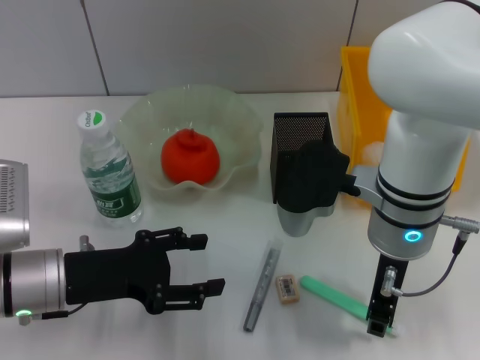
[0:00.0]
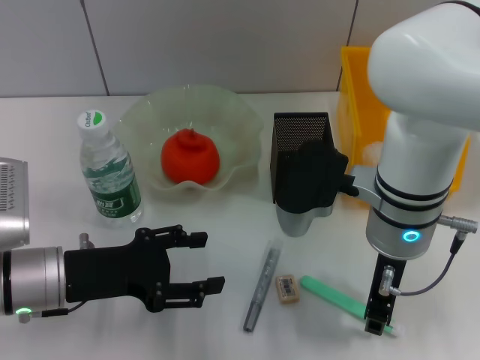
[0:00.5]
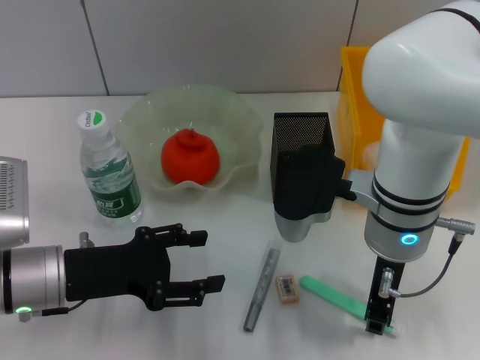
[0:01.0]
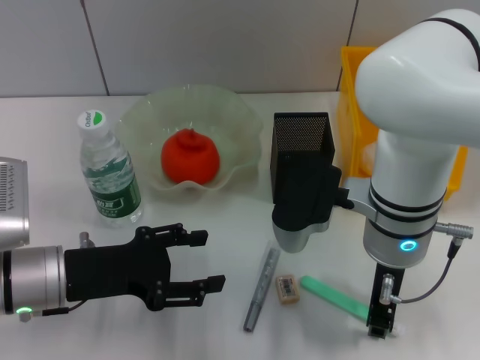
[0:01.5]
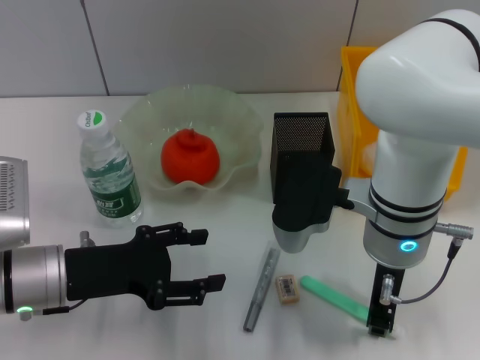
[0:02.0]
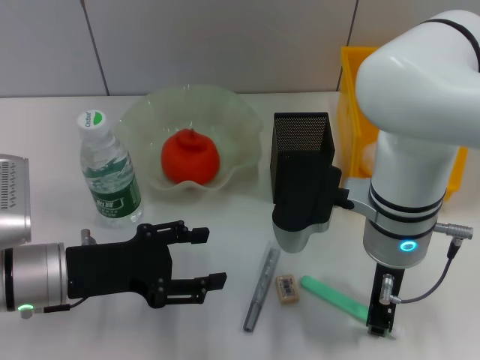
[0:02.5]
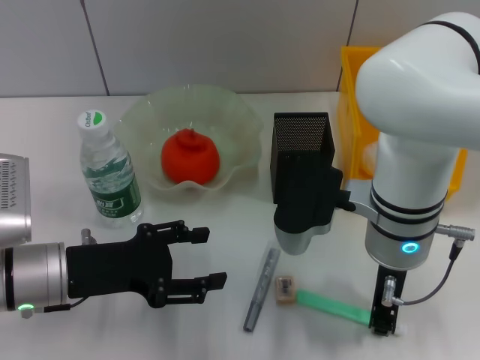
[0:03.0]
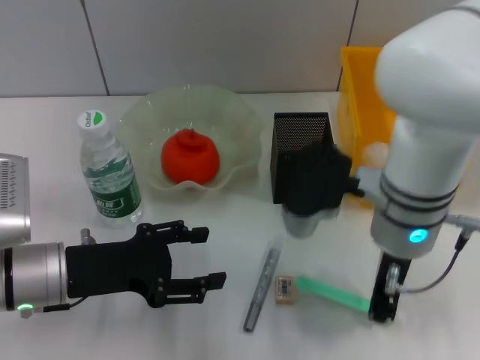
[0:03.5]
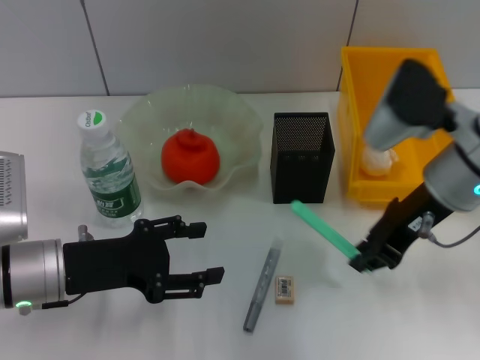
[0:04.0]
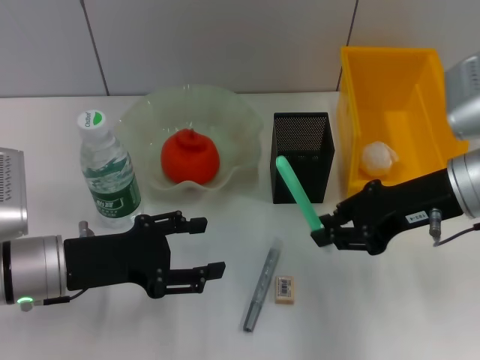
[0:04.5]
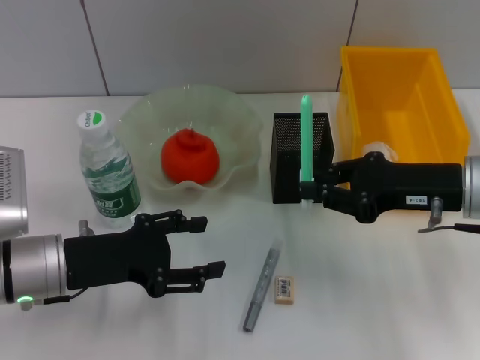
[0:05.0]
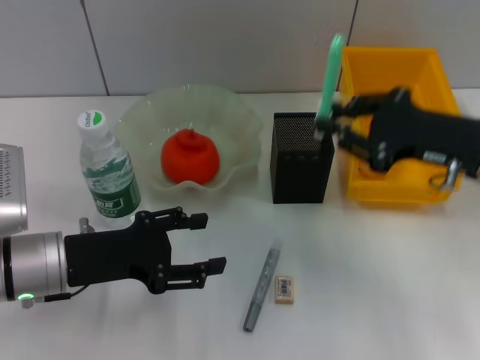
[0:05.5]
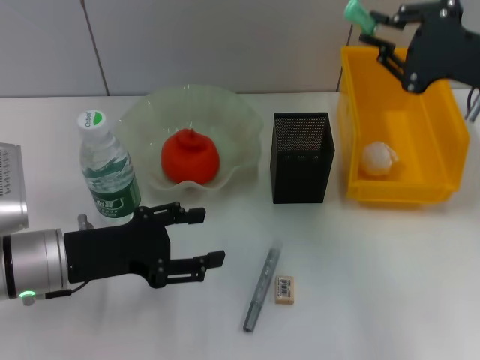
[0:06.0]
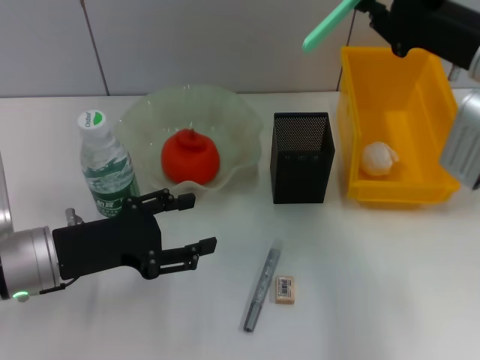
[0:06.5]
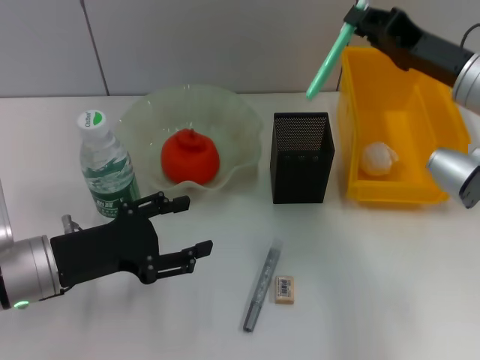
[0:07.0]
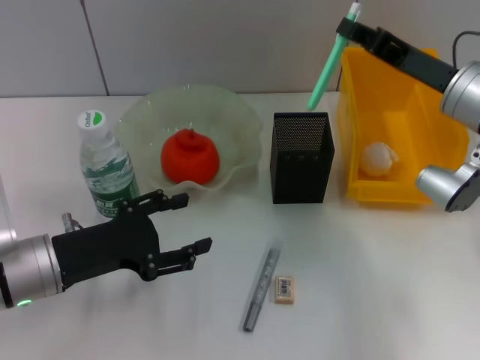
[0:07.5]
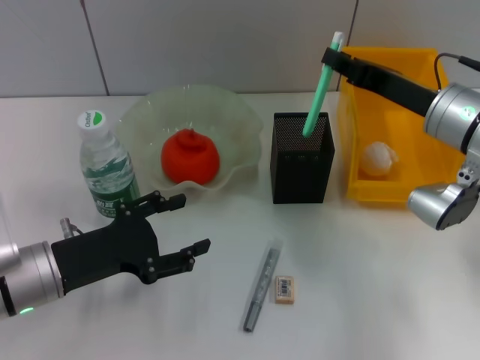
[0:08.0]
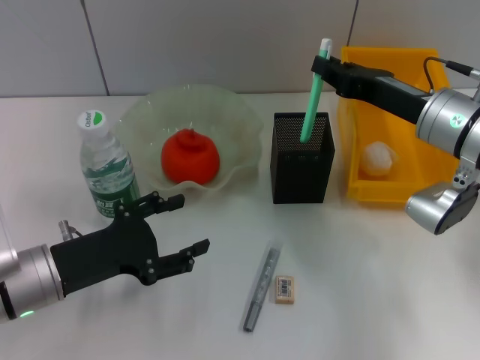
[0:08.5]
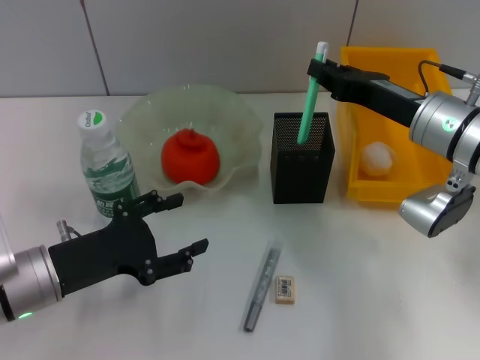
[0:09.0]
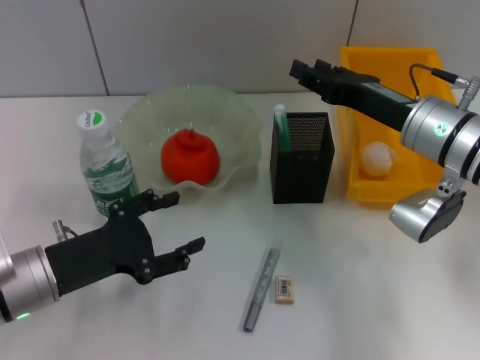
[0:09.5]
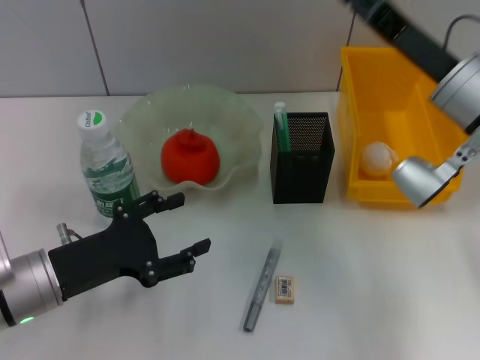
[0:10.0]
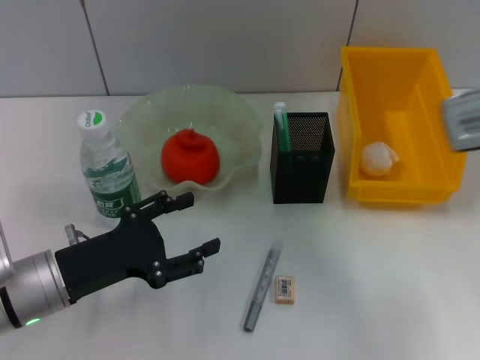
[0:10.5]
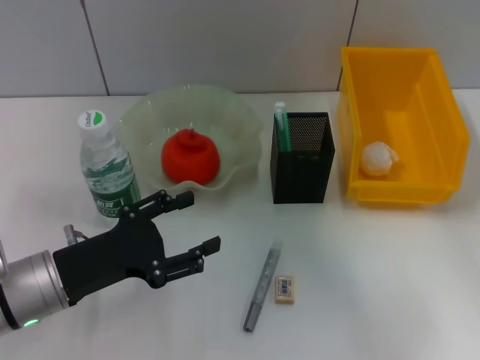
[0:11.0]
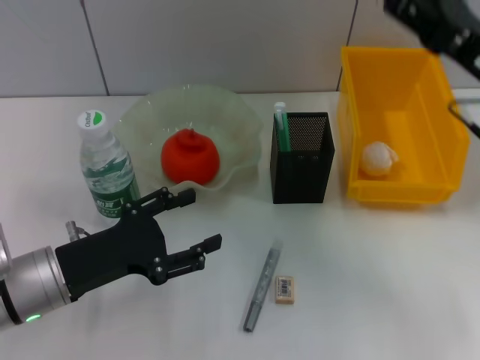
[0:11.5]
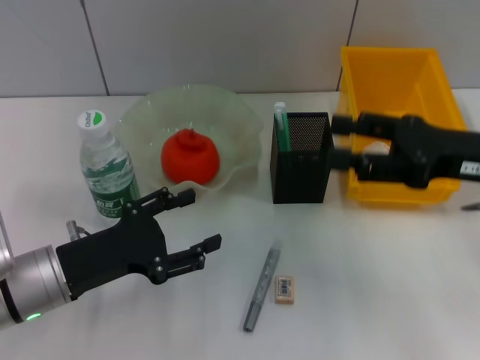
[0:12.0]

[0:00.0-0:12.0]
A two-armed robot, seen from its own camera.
Step, 0:00.0 to 0:03.0: Grab the blue utility knife with the right hand.
Step, 0:03.5 to 0:09.5: Place the blue utility knife into the pen holder with the right hand.
0:00.0 to 0:02.0: Both grippers stay put.
0:02.0 to 0:04.0: The right gripper travels to the right by approximately 10 cm.
0:04.0 to 0:06.0: The right gripper is displaced to the right by roughly 10 cm.
0:06.0 to 0:08.0: The right gripper goes roughly 5 cm downward.
0:08.0 to 0:10.0: The right gripper opens up.
0:10.0 to 0:12.0: The right gripper is displaced to the right and backward by approximately 10 cm.

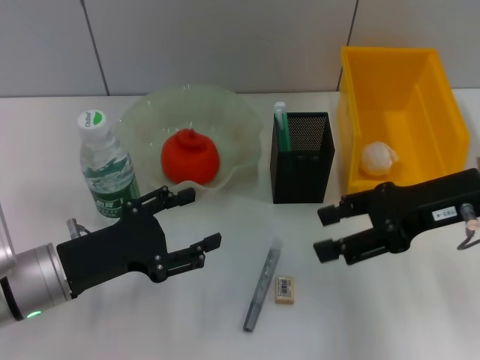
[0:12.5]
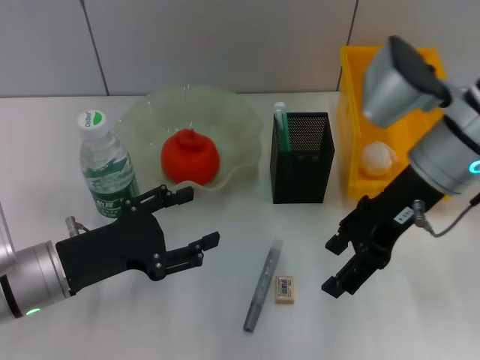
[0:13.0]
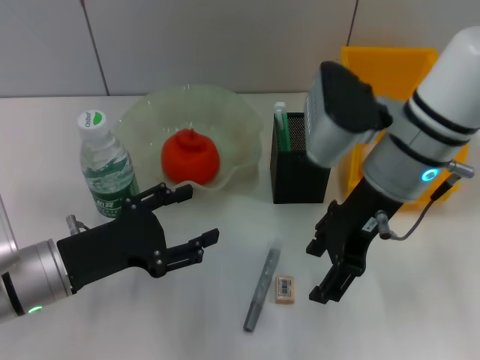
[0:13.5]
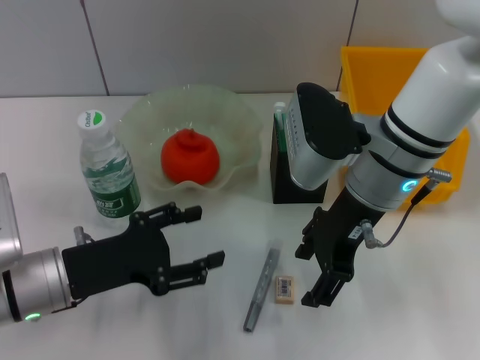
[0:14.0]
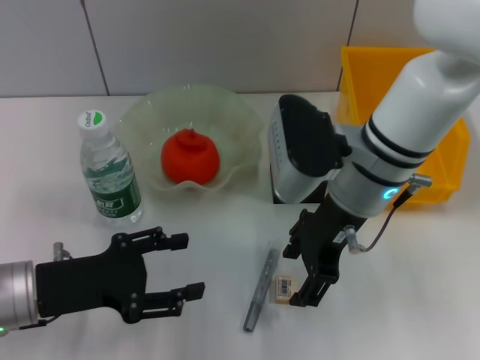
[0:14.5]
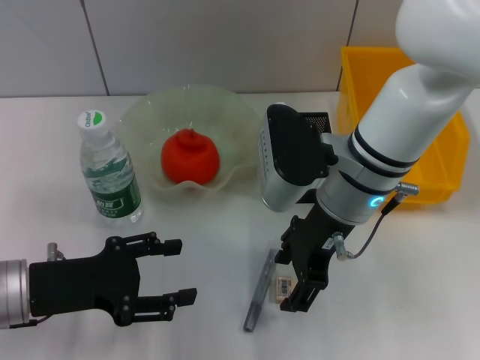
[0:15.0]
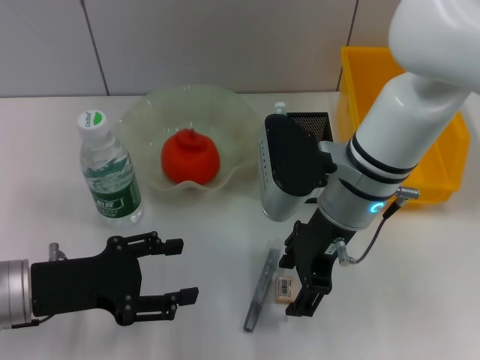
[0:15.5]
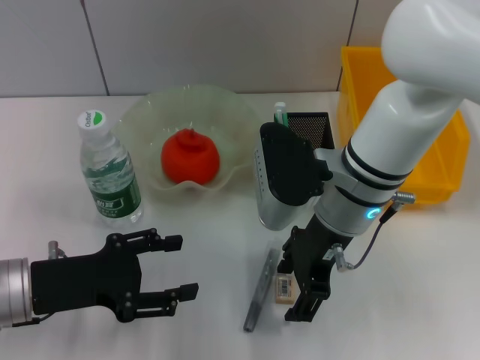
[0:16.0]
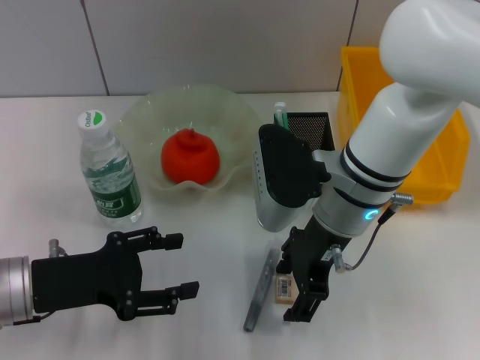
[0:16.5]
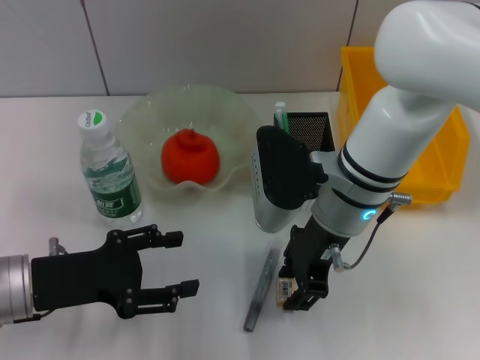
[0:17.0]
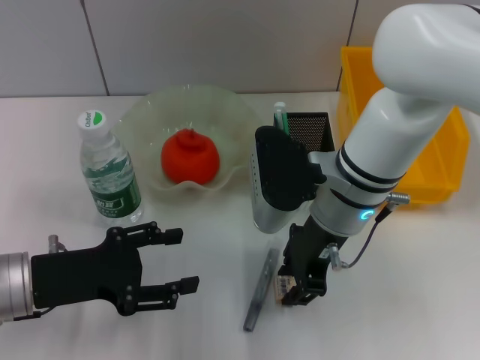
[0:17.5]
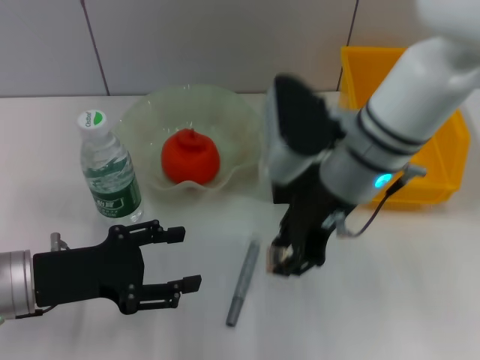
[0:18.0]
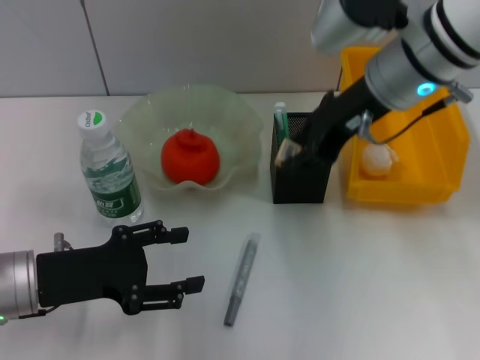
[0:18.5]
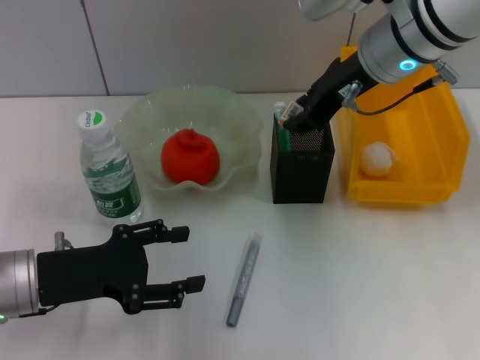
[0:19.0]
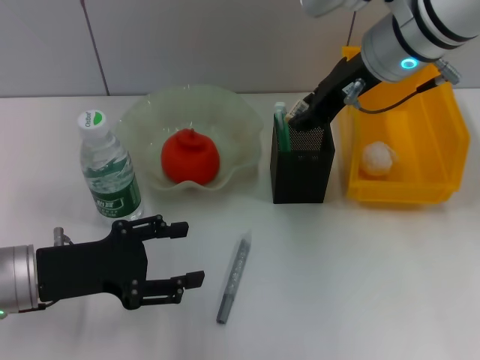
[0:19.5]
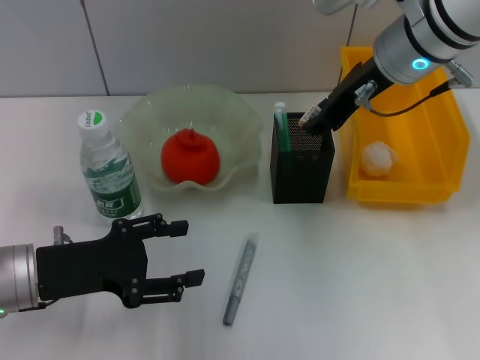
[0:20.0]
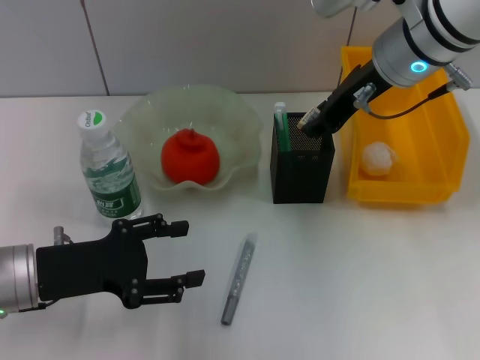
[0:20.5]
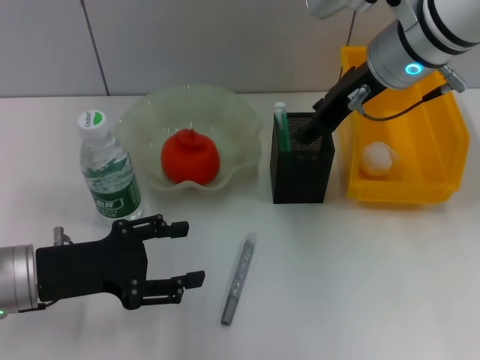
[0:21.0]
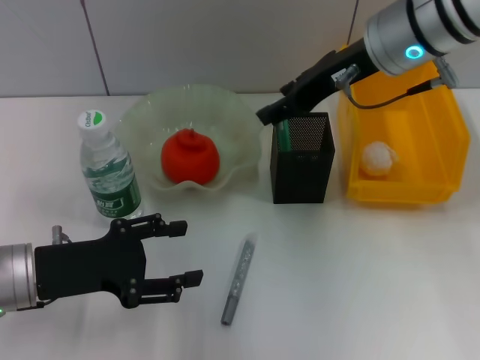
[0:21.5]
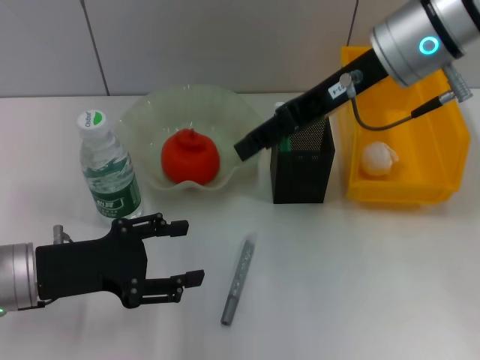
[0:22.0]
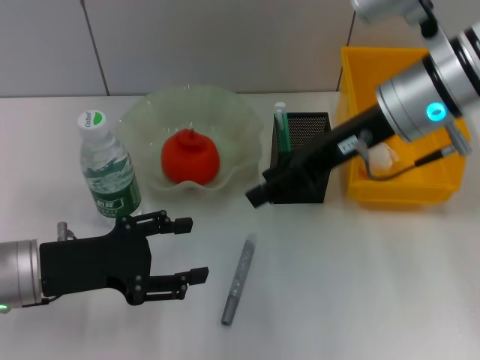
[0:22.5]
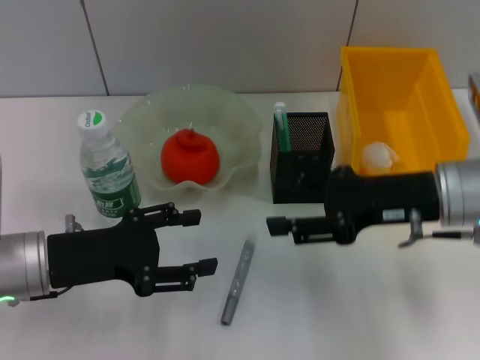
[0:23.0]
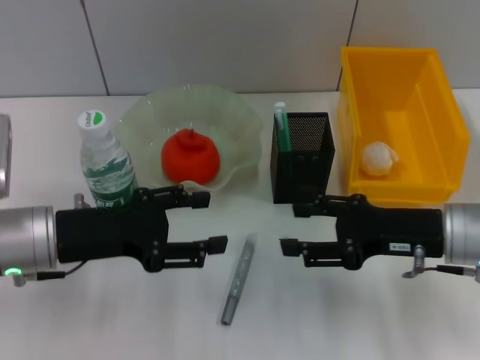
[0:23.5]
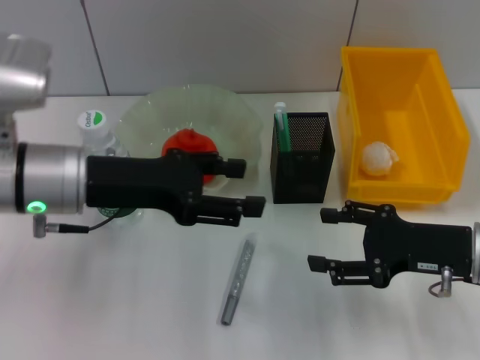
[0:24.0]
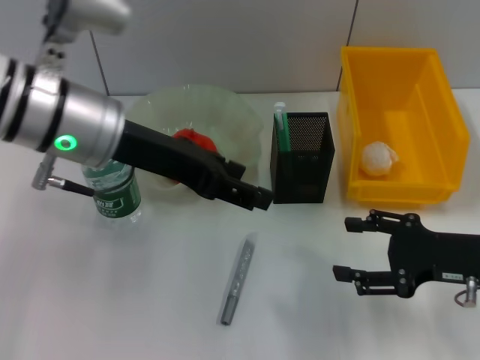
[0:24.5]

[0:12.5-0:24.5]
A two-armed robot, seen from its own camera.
Step, 0:12.5 to 0:17.0: Grab the eraser with the right hand.
Step, 0:18.0 to 0:21.0: Put the eraser into the pen holder with the right hand.
0:12.5 to 0:14.5: The right gripper is displaced to the left by roughly 15 cm.
0:14.5 to 0:16.5: There are only small adjustments of the grippers.
0:16.5 to 0:18.5: The right gripper travels upward by roughly 10 cm, and closes its fingers.
0:18.5 to 0:20.5: The grippers stay close to where they were, moving slightly.
0:20.5 to 0:22.5: The right gripper shifts by roughly 5 cm, and opens.
0:22.5 to 0:24.5: The right gripper shifts some 20 cm downward, to the right and backward. Meanwhile the left gripper goes approximately 20 cm upward, to the right and forward.

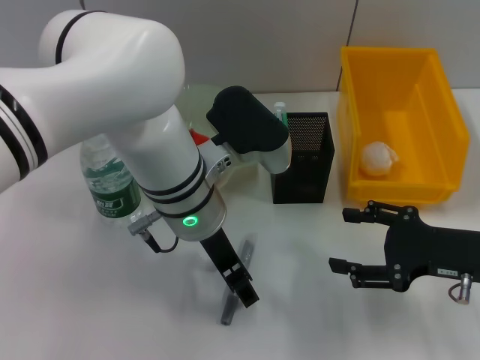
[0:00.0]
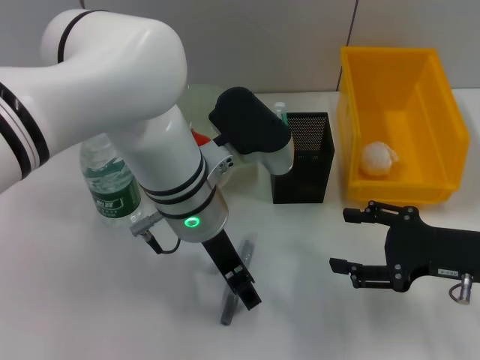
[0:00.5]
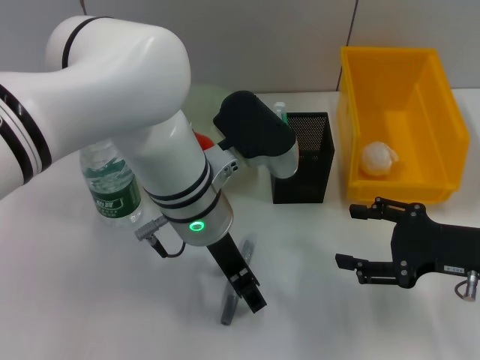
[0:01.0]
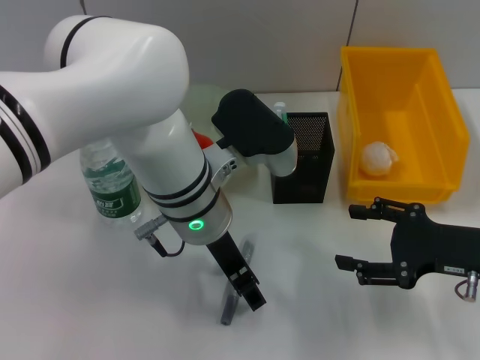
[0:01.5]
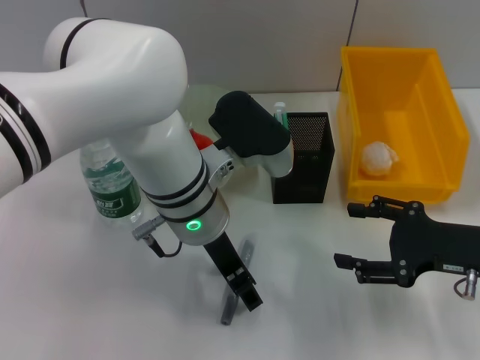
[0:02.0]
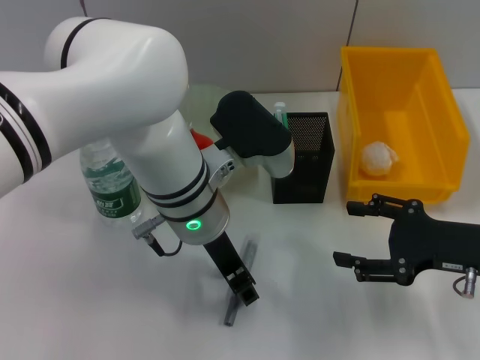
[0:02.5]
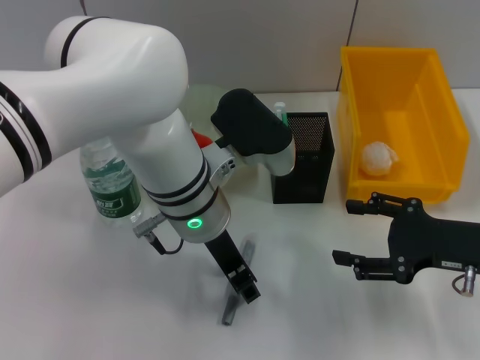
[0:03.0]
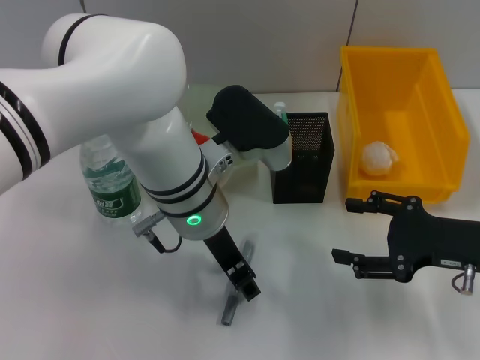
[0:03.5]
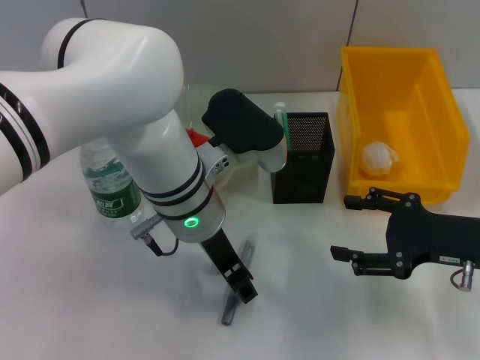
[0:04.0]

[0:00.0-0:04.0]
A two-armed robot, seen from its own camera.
0:00.0 to 0:04.0: The two grippers keep their place.
